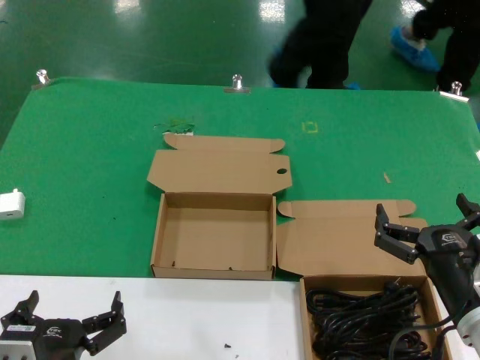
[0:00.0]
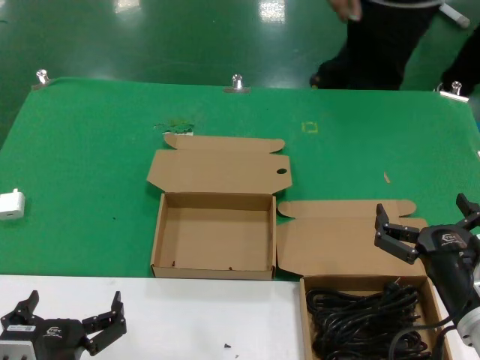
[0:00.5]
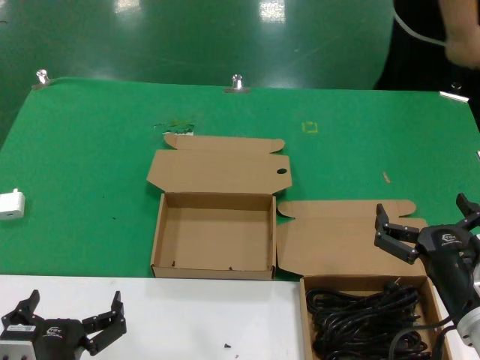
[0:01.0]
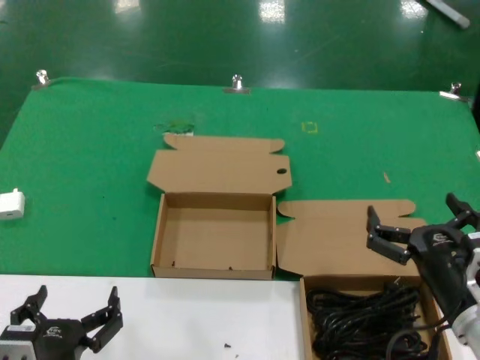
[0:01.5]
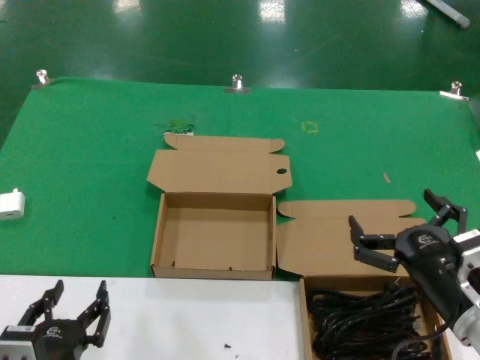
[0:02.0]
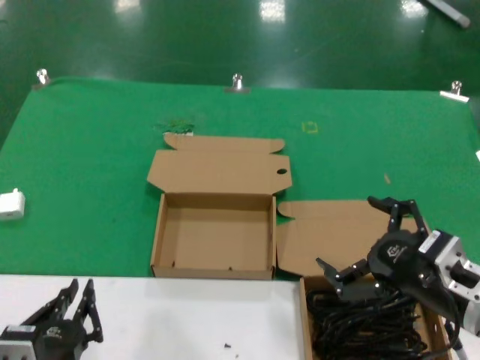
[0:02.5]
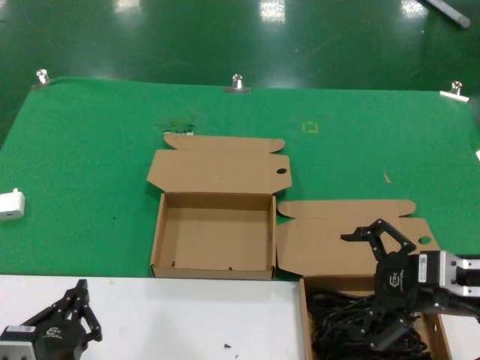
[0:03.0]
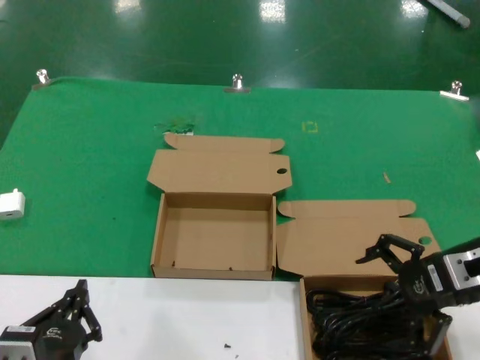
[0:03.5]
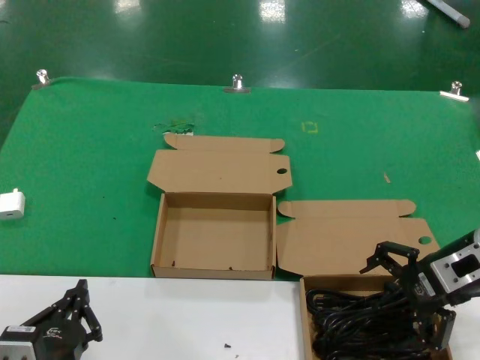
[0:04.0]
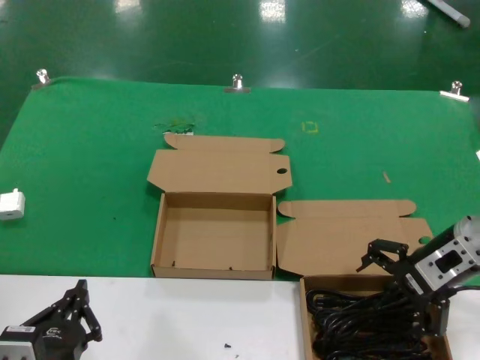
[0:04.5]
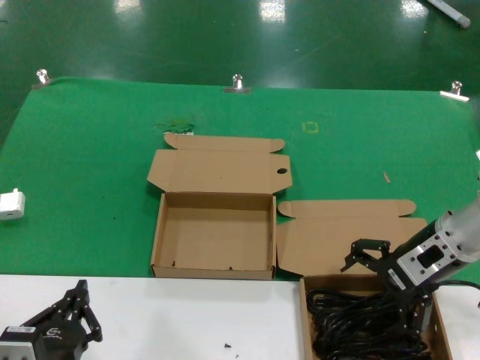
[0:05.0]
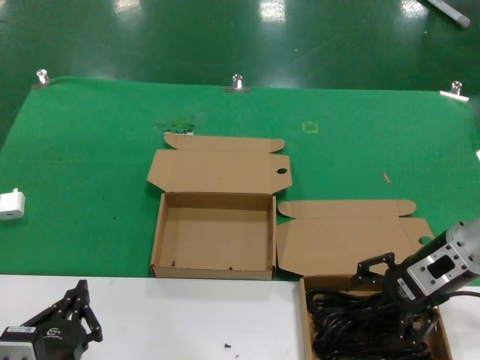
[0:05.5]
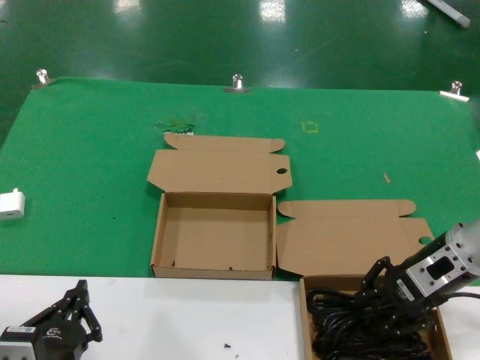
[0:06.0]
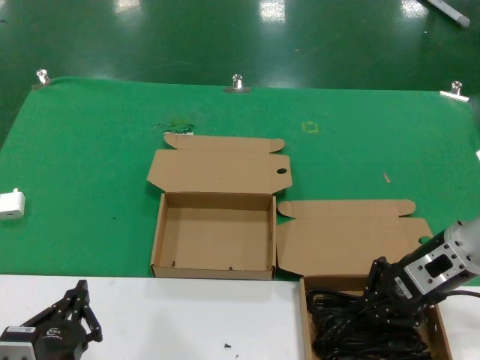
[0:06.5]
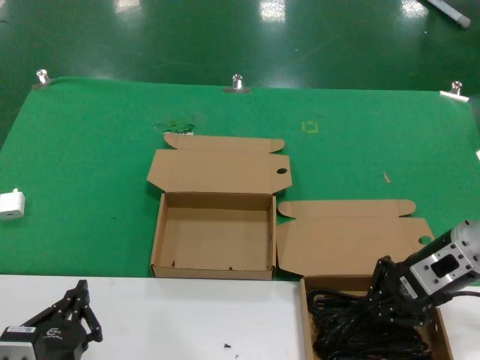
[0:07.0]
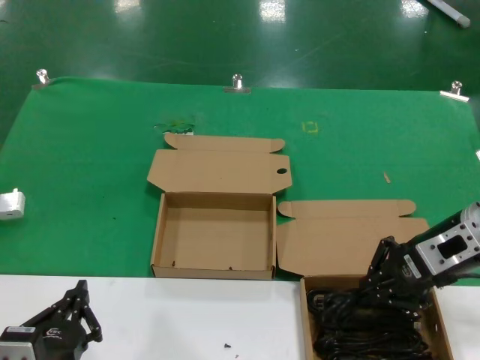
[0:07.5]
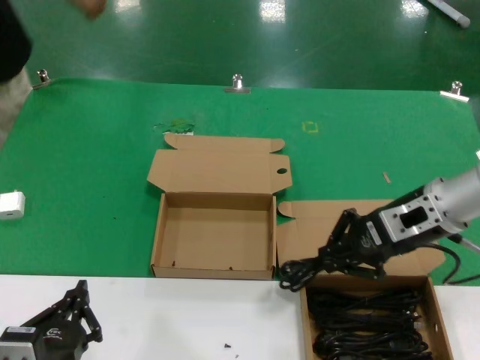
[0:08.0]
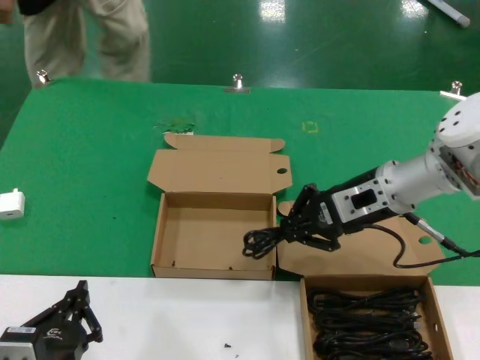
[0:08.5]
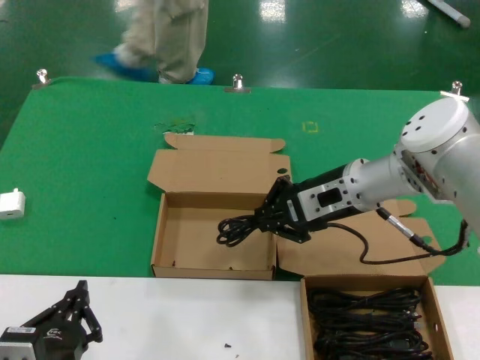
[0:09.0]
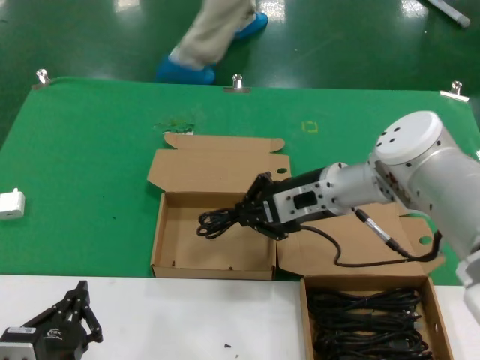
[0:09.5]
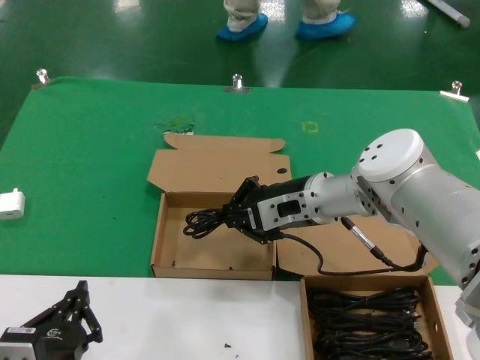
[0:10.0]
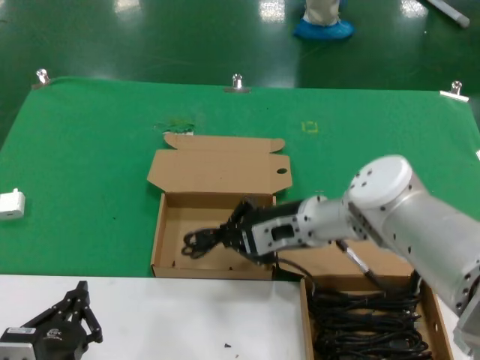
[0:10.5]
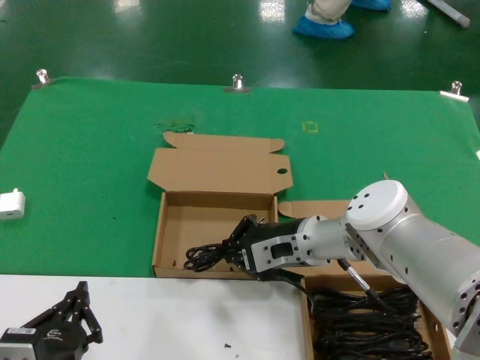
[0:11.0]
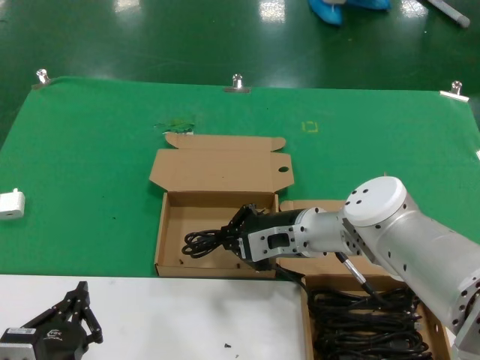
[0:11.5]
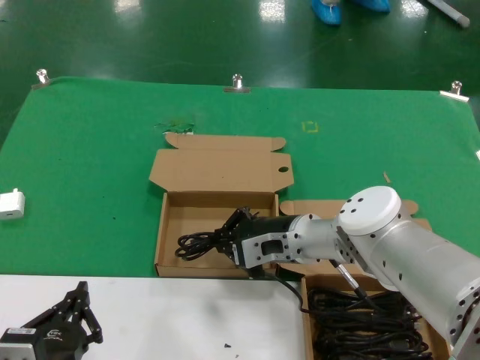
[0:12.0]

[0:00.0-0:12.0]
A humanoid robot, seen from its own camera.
Task of the whole recording: take the parts from the box containing them and put them into an empty box.
Step, 0:00.0 to 0:06.0: Grasp the data cable.
0:00.0 to 0:02.0: The hands stay close to where they were, moving slightly.
0:02.0 to 0:04.0: The right hand heads forward, upward and to the right, covering approximately 20 cm.
0:04.0 to 0:06.0: The hands make only small movements.
0:06.0 to 0:08.0: The right hand changes place by some 5 cm.
0:08.0 to 0:10.0: The right hand is displaced to the left by about 15 cm.
0:10.0 to 0:12.0: The right hand shifts about 5 cm downward.

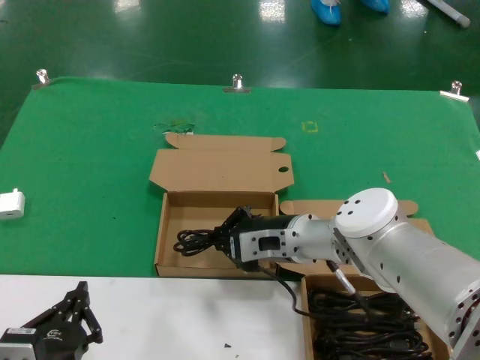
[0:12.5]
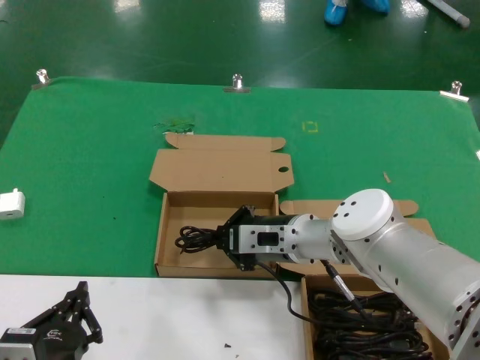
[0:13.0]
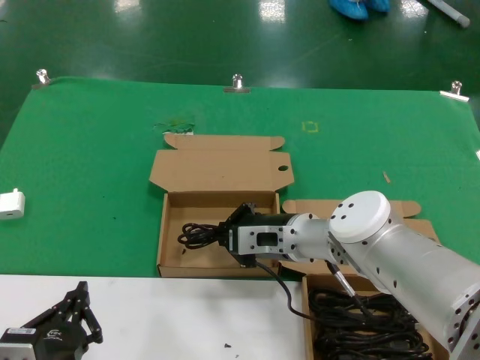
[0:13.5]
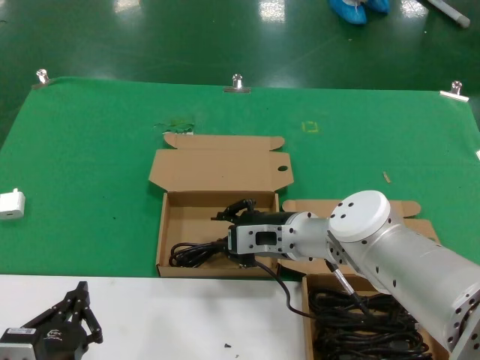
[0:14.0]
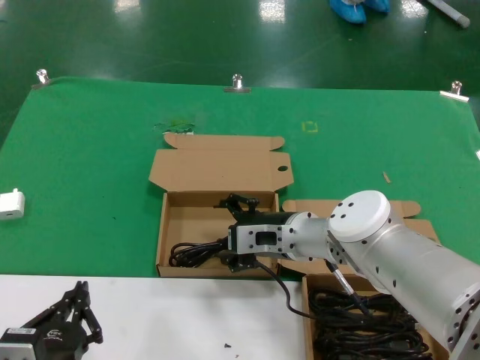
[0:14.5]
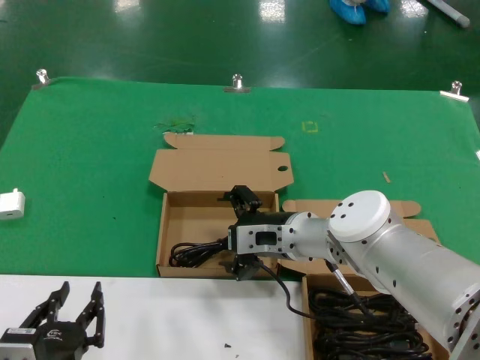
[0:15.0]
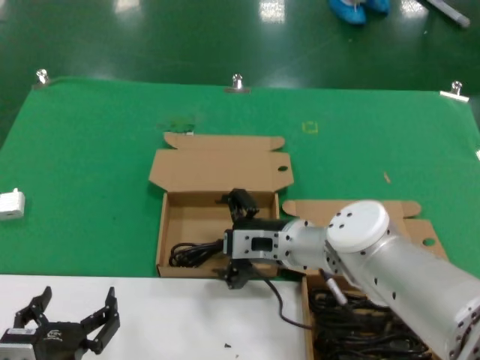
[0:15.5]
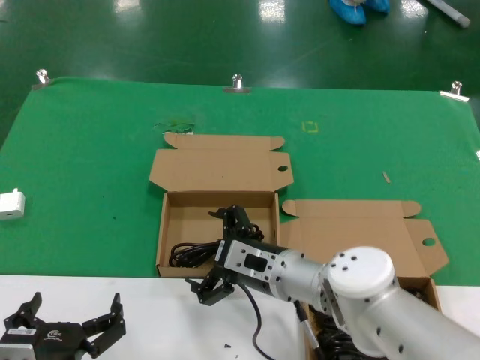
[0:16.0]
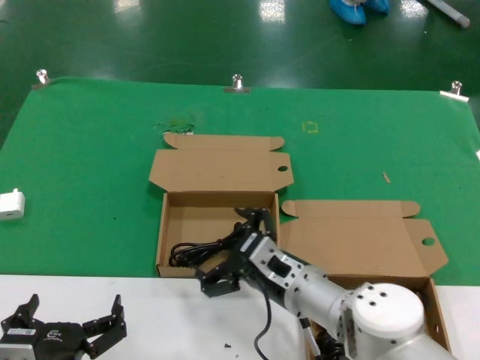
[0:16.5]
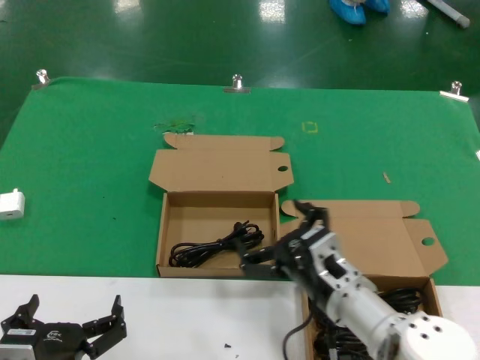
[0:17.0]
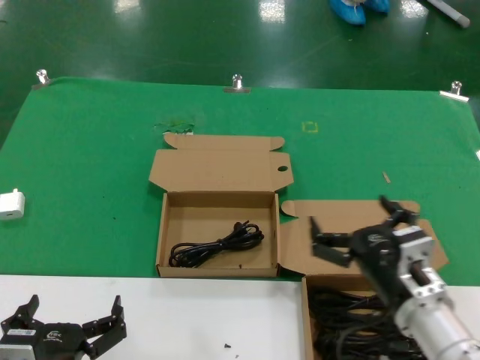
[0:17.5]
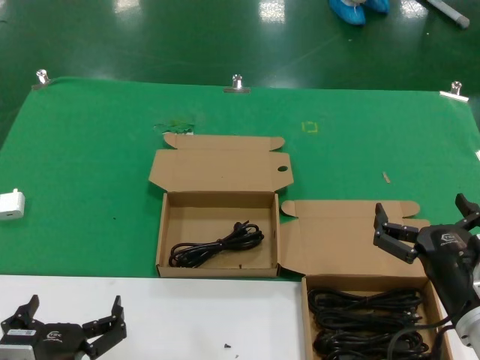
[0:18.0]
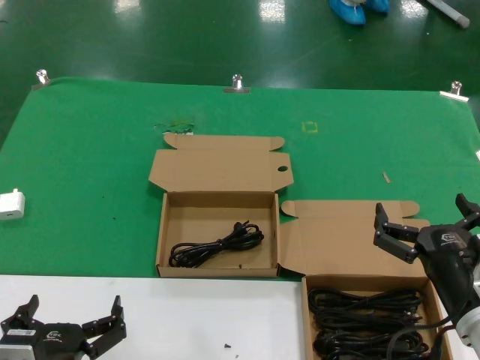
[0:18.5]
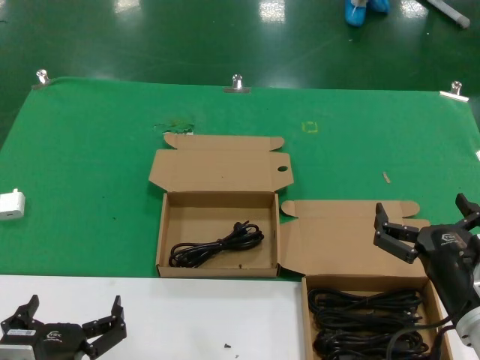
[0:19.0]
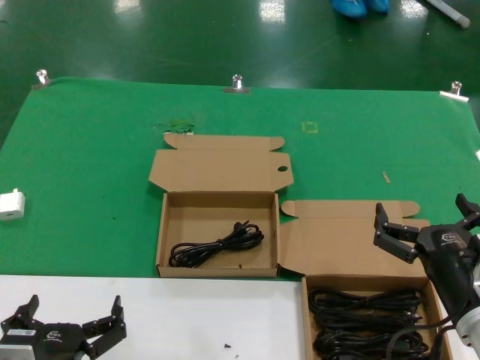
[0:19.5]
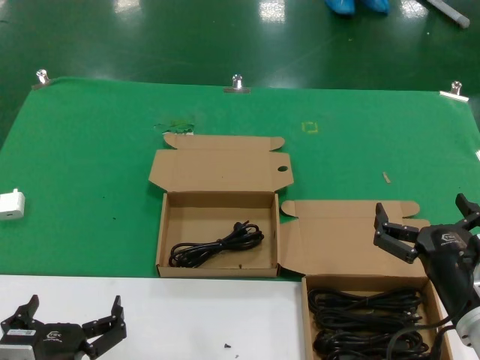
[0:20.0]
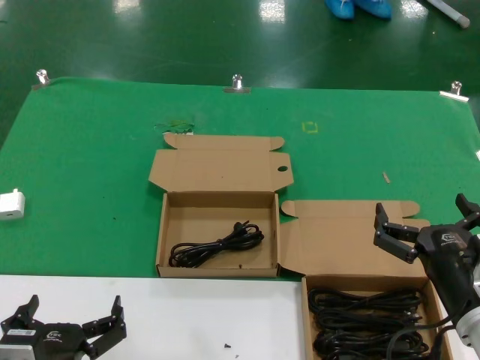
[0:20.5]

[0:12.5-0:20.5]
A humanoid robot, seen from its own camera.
Task of the whole recording: take the parts from the box containing them and put them into an empty box.
0:12.5 to 0:14.5: There are only small adjustments of the hands.
0:14.5 to 0:16.5: The right hand goes roughly 10 cm backward and downward.
0:16.5 to 0:18.5: The right hand goes some 20 cm to the right and backward.
0:18.5 to 0:20.5: Both hands stay about where they are.
